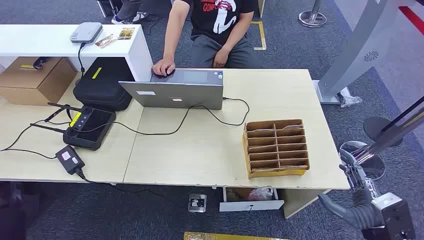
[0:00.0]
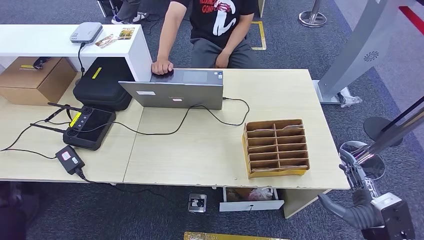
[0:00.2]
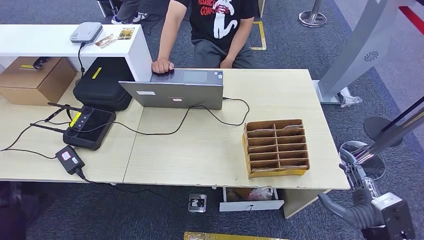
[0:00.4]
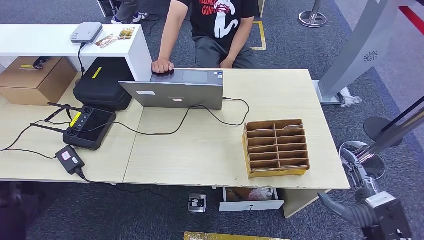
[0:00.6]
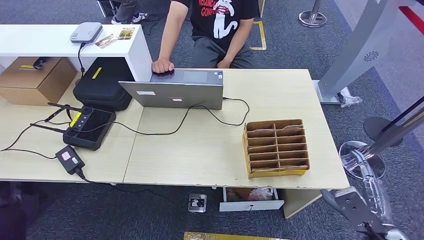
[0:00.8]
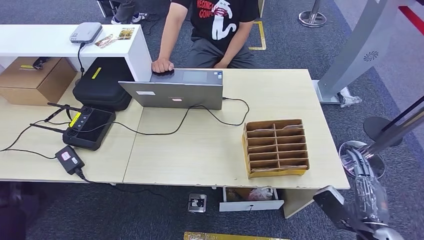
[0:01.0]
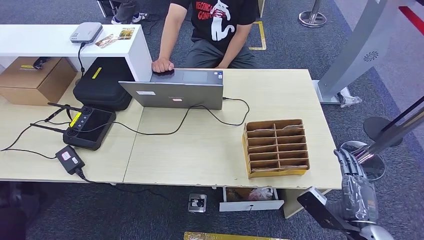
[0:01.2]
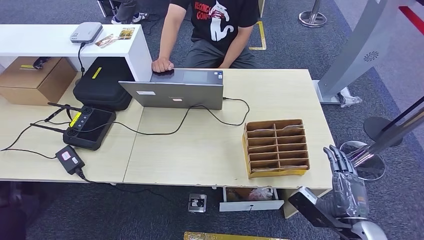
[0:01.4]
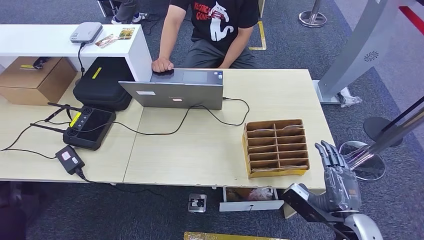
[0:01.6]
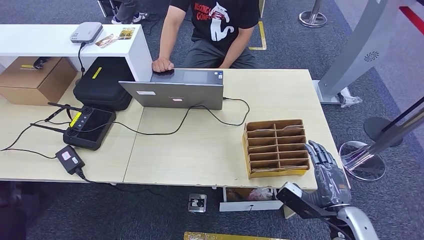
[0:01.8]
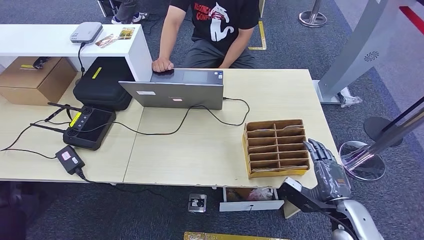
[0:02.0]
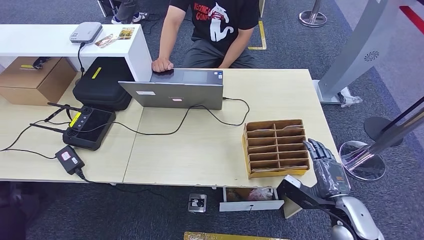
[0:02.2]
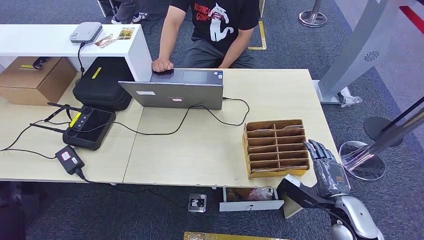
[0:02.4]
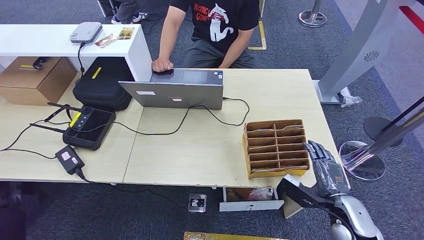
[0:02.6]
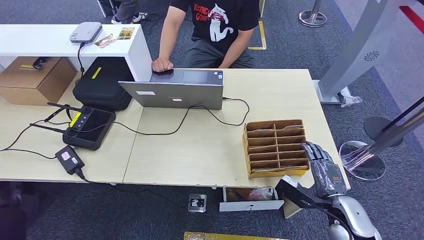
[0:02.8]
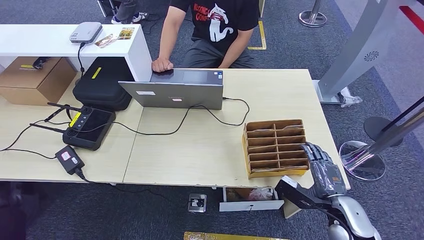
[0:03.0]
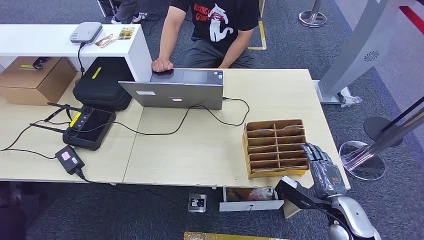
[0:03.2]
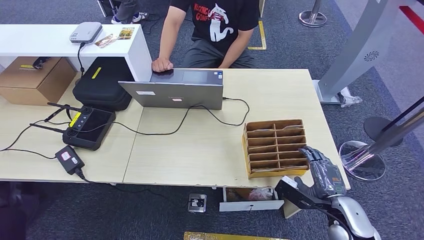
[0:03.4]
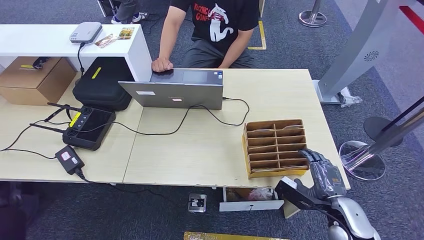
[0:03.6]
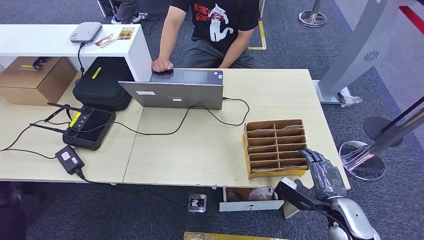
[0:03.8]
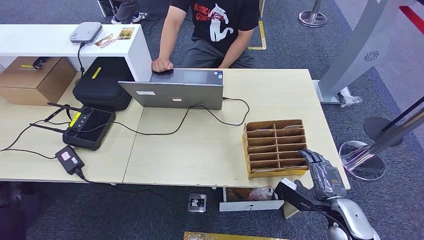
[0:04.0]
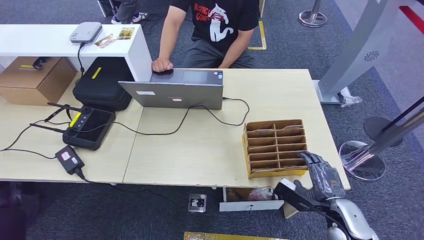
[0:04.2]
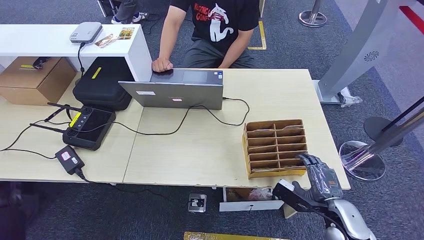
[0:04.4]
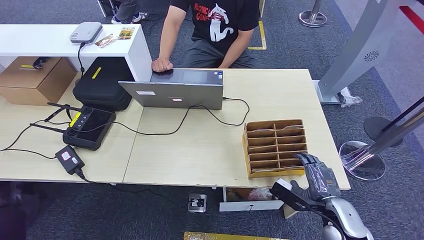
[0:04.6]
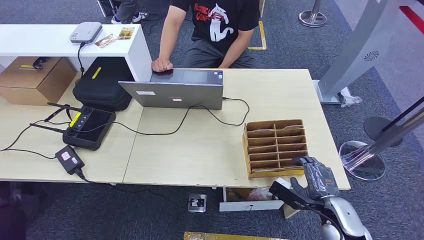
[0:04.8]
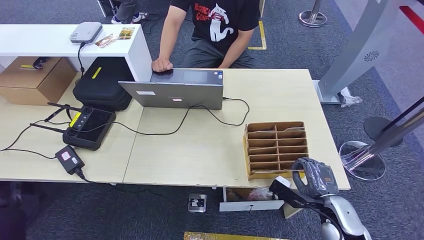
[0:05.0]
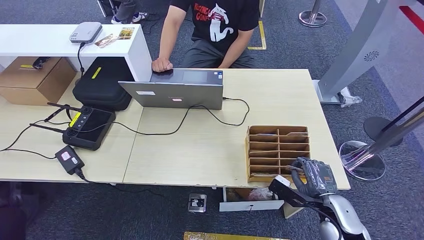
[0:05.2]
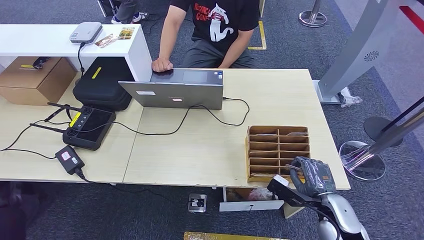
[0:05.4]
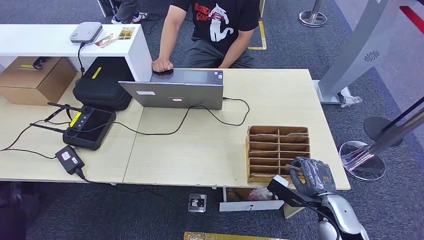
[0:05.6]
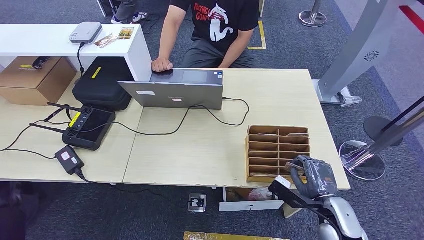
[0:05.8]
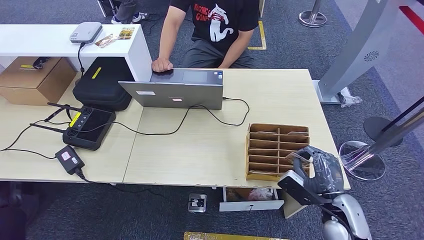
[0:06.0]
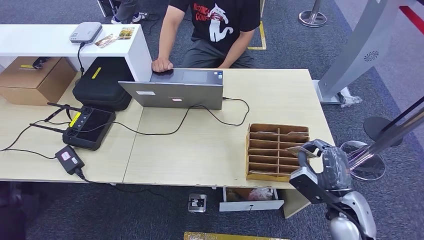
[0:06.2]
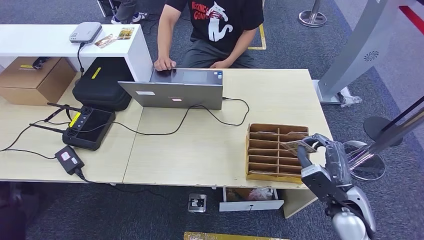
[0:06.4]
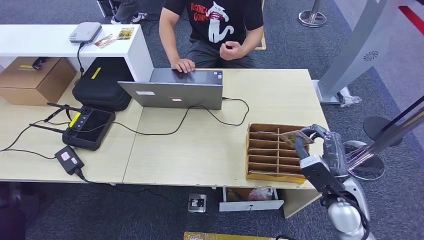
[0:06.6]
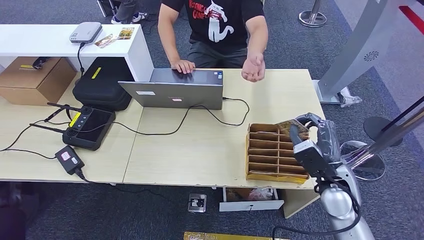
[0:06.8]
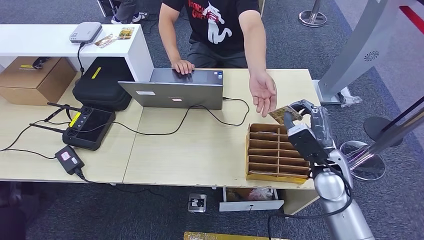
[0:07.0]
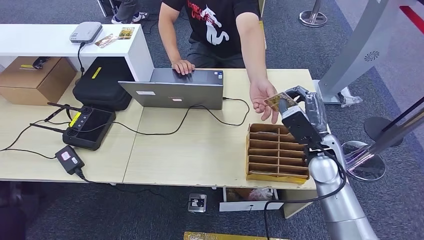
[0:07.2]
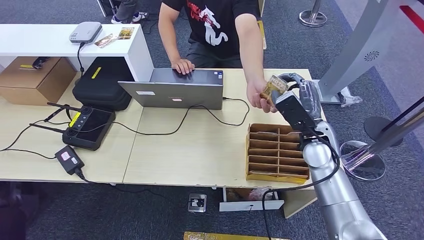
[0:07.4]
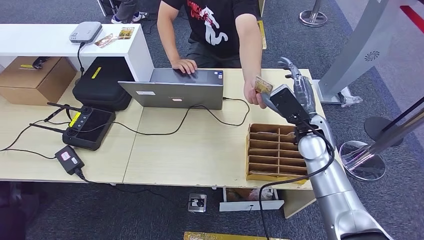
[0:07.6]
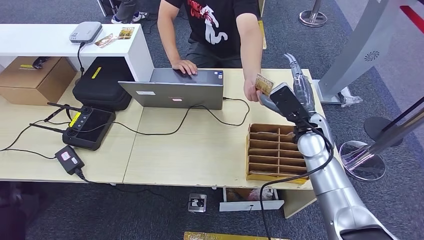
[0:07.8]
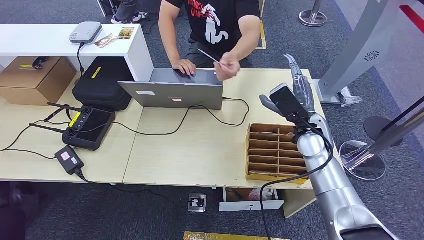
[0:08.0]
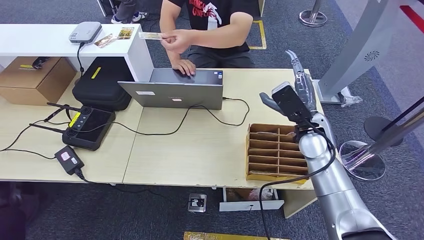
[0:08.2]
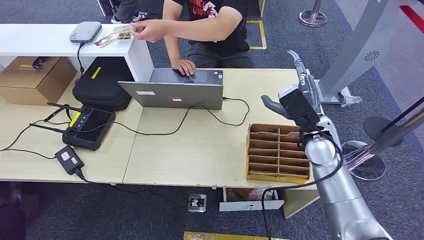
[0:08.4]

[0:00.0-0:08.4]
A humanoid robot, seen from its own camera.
Step, 0:00.0 to 0:06.6: Pick up the key card from the card box.
Step, 0:06.8 to 0:08.4: Hand the key card to the target.
0:01.4 to 0:02.8: The right hand is displaced forward by some 5 cm.
0:02.8 to 0:04.2: Neither hand changes place.
0:04.2 to 0:05.6: There are only small adjustments of the hands.
0:05.6 to 0:07.0: The right hand goes approximately 15 cm upward and forward.
0:07.0 to 0:08.4: The right hand travels forward and upward by about 10 cm.
